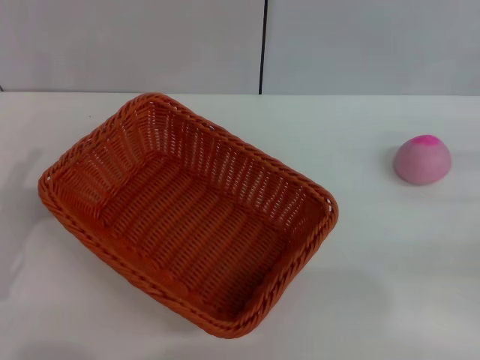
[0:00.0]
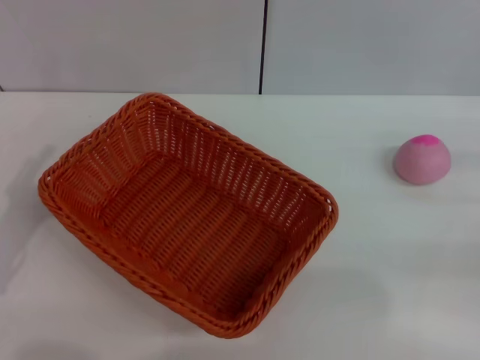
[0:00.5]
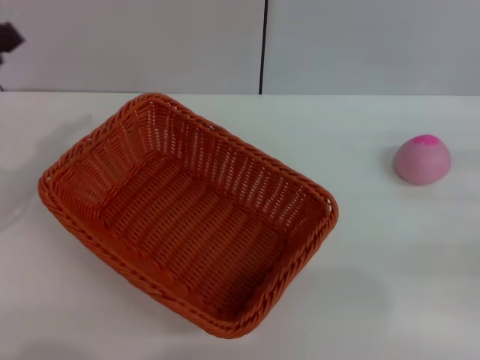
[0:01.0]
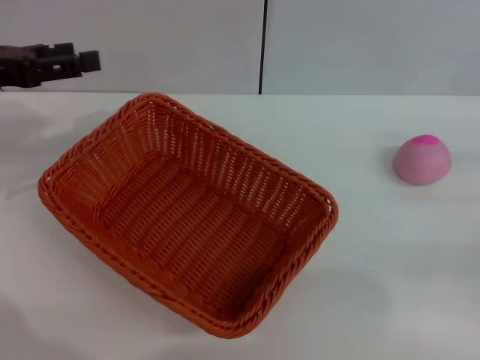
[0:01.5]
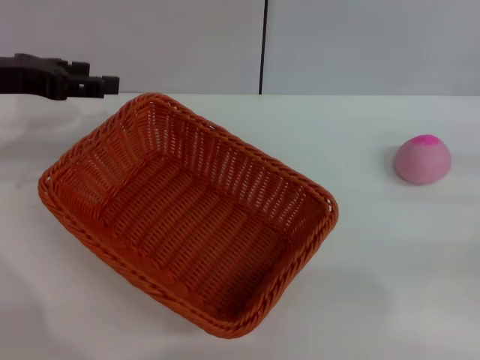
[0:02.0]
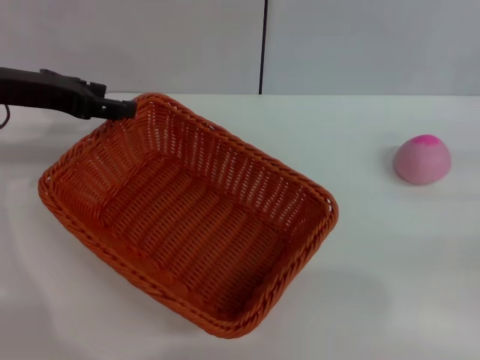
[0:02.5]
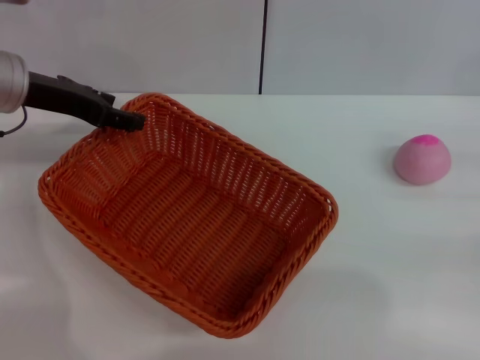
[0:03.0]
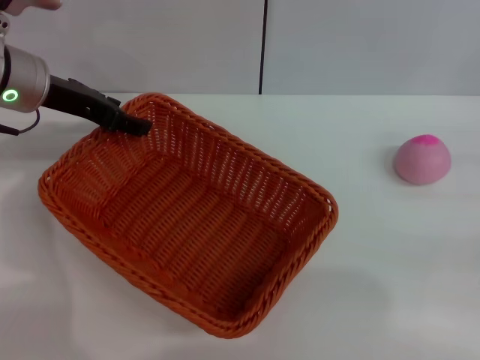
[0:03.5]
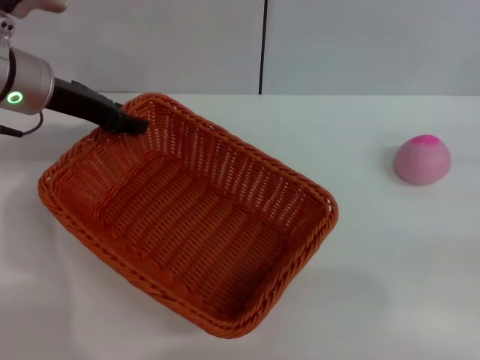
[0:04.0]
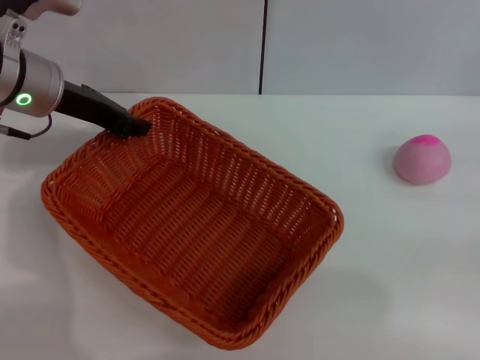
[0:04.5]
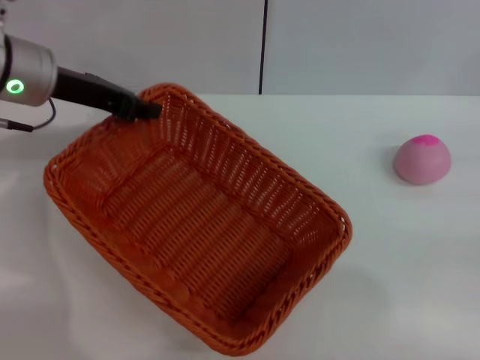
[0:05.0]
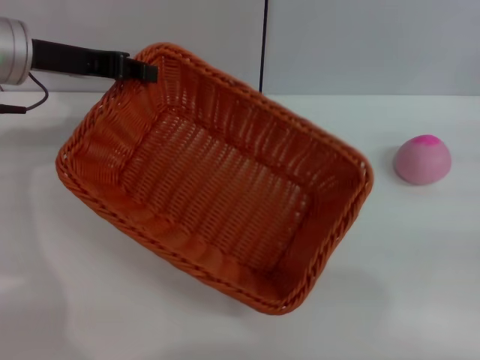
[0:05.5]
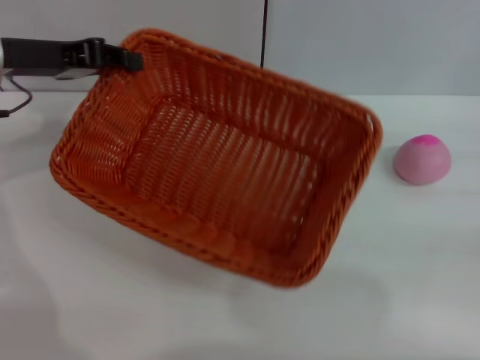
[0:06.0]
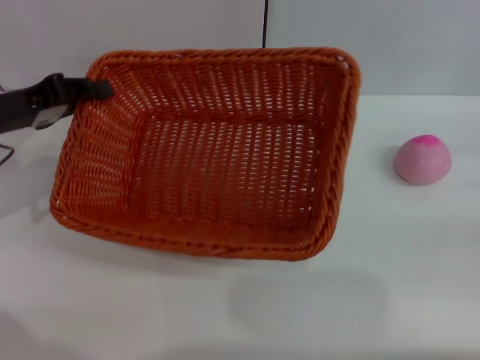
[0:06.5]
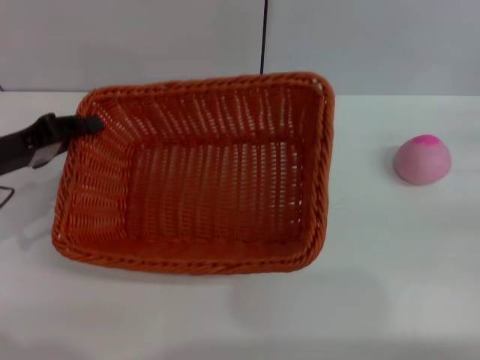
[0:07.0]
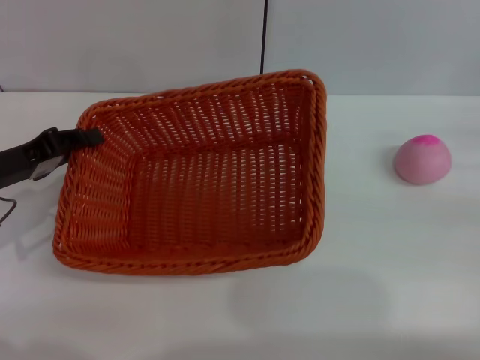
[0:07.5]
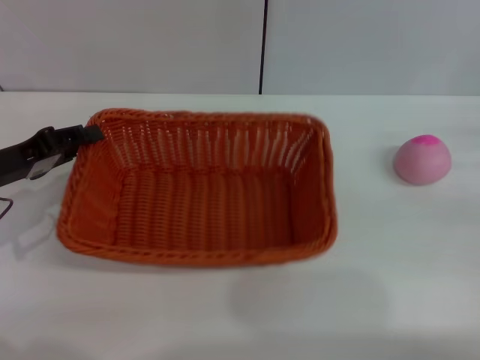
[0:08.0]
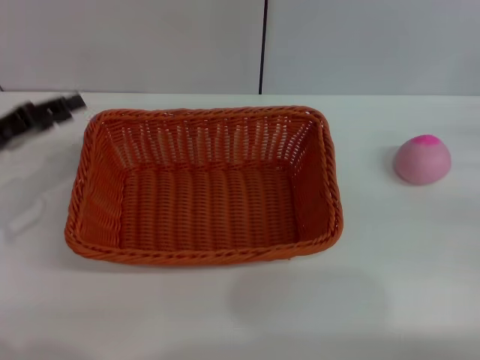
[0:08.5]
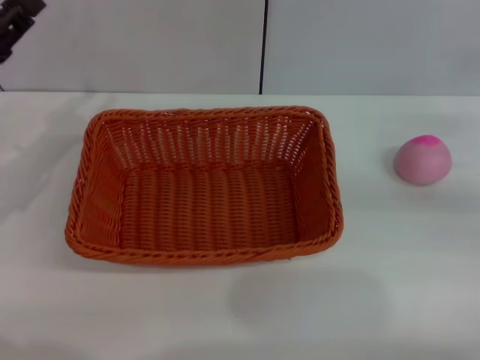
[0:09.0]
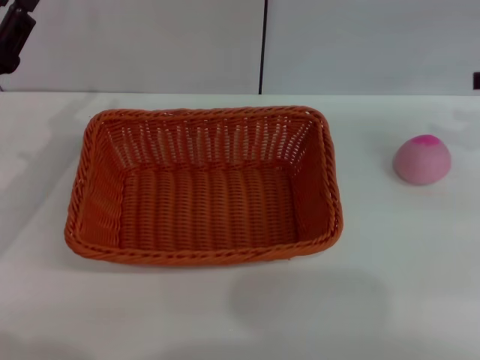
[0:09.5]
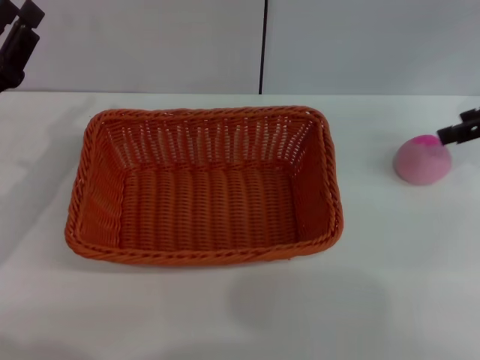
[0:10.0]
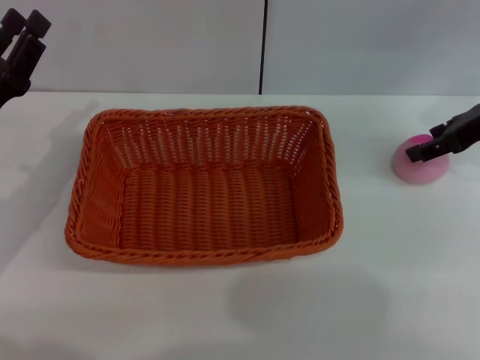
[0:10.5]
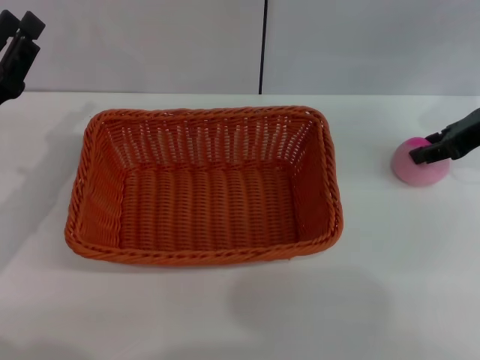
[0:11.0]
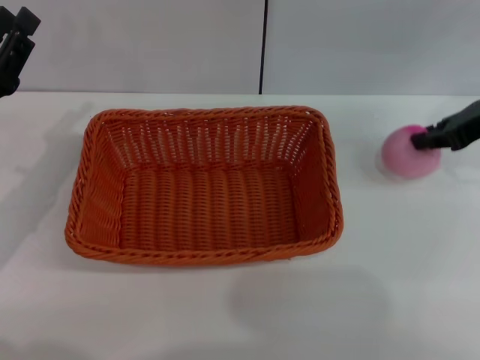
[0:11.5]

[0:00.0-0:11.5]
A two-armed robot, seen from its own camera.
Step, 0:00.0 to 0:05.0: Pick up the light basket with the left gripper.
Step, 0:05.5 to 0:08.5: Place the light basket in the center of view with the right gripper.
0:00.0 to 0:02.0: The left gripper is displaced forward and upward by some 20 cm.
0:02.0 to 0:04.0: The left gripper moves to the right, about 5 cm, and closes up.
0:04.0 to 0:06.0: The left gripper closes its fingers.
0:06.0 to 0:07.5: The left gripper is displaced downward, backward and to the left by some 15 cm.
0:07.5 to 0:09.5: The right gripper travels upward and forward by about 15 cm. Meanwhile the left gripper opens up.
0:09.5 to 0:11.5: The right gripper goes approximately 5 cm to the left, and closes up.

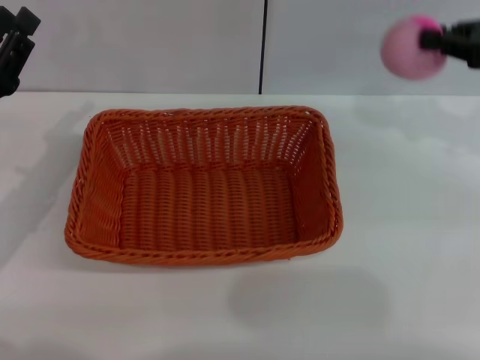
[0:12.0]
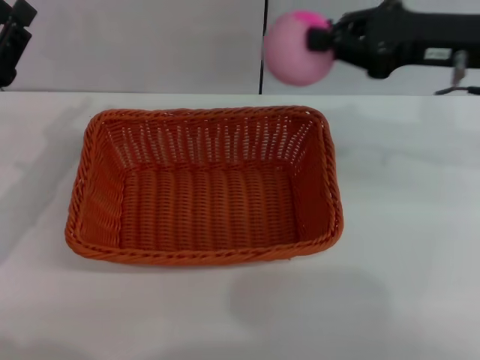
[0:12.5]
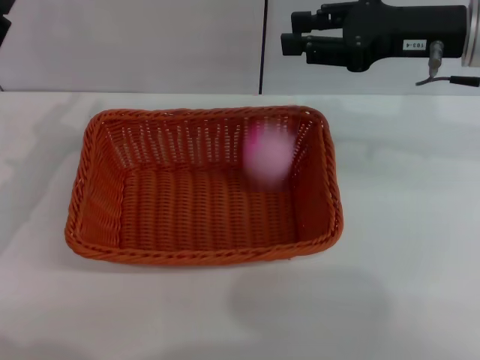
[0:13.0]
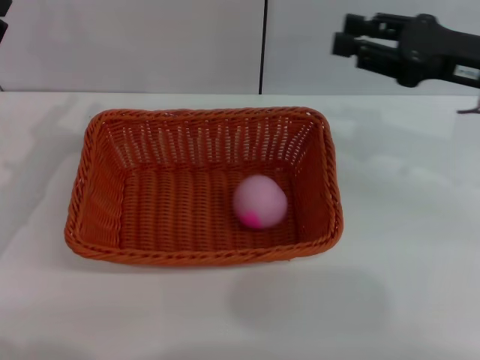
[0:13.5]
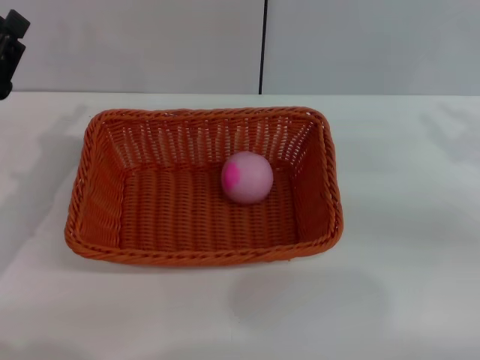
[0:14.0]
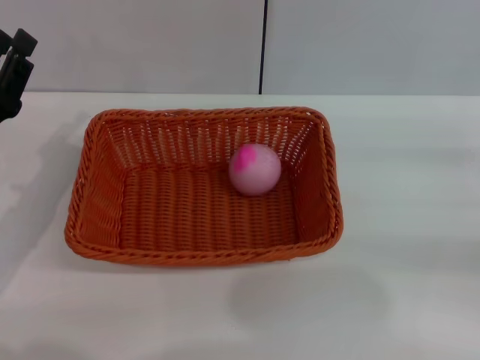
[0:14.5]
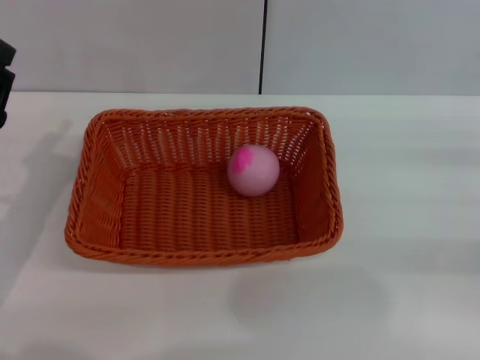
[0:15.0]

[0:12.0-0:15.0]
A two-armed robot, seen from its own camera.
0:12.0 to 0:13.5: The right gripper shifts roughly 5 cm to the left, and opens its fingers.
0:13.5 to 0:15.0: The right gripper shifts approximately 20 cm to the right, backward and downward; the left gripper shifts by roughly 5 cm.
